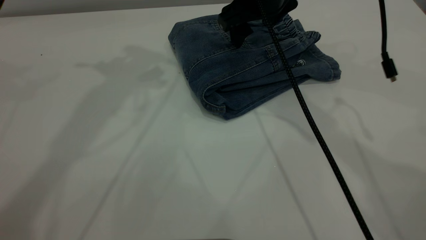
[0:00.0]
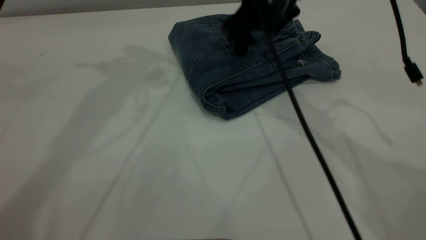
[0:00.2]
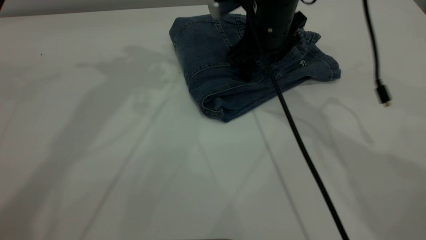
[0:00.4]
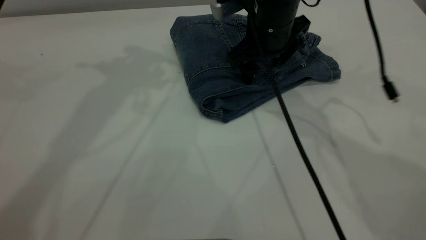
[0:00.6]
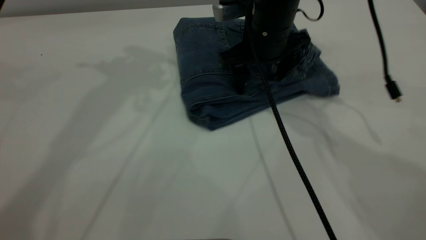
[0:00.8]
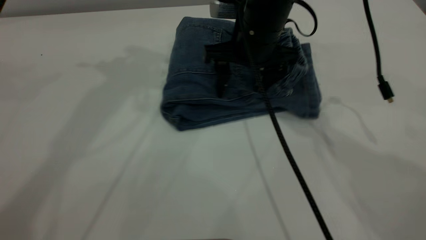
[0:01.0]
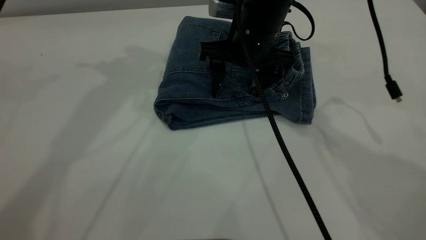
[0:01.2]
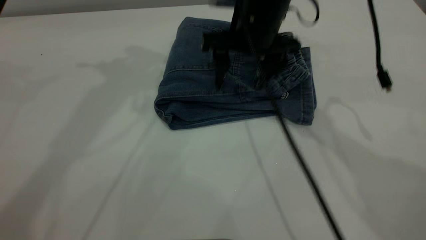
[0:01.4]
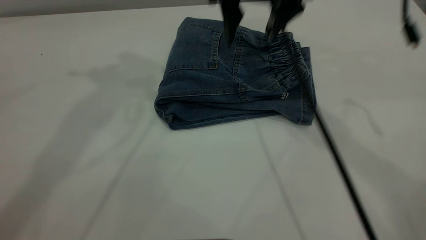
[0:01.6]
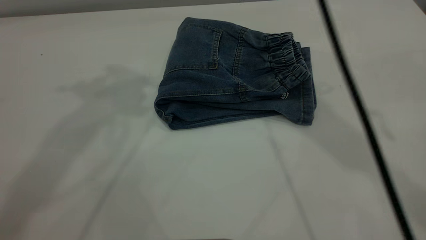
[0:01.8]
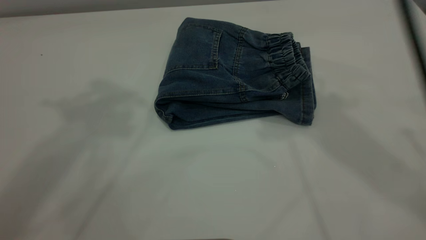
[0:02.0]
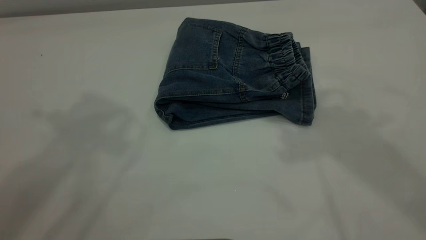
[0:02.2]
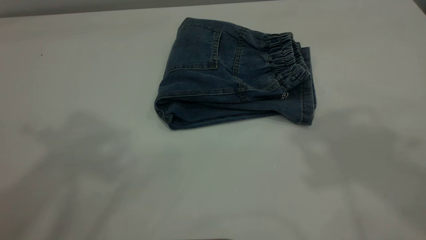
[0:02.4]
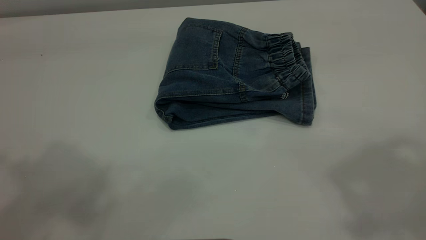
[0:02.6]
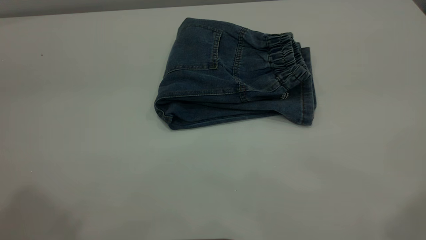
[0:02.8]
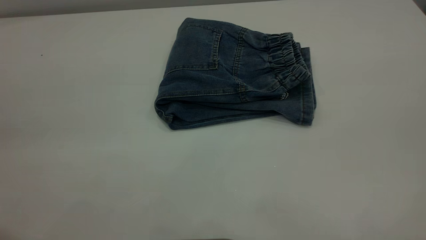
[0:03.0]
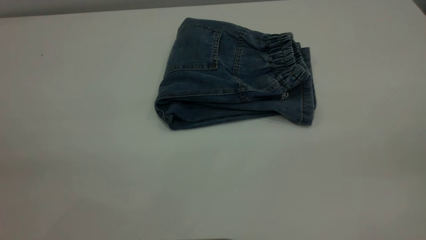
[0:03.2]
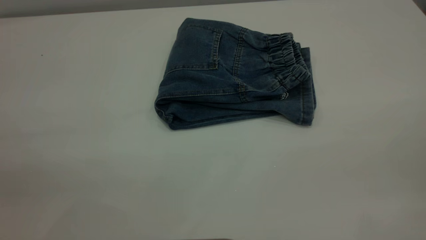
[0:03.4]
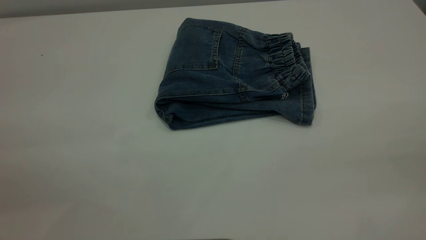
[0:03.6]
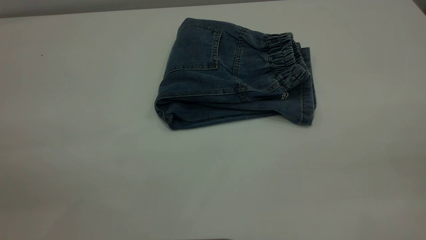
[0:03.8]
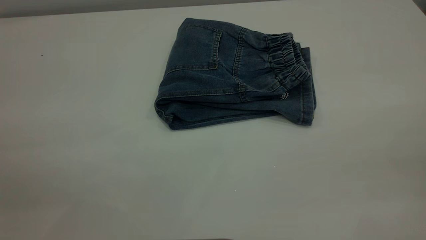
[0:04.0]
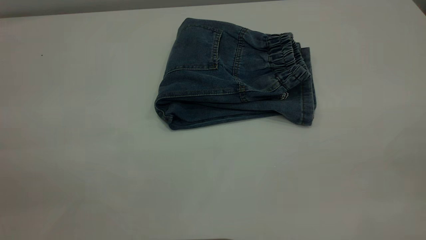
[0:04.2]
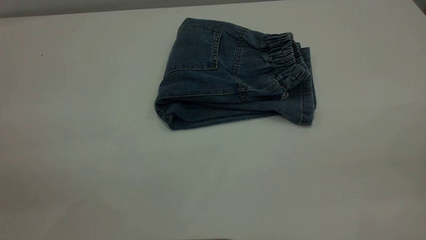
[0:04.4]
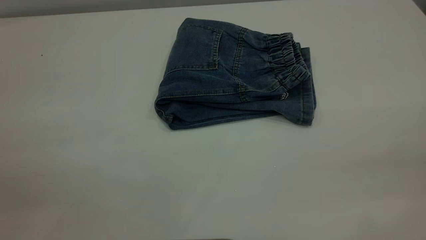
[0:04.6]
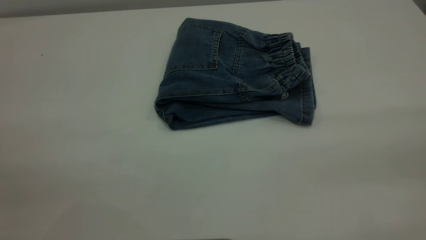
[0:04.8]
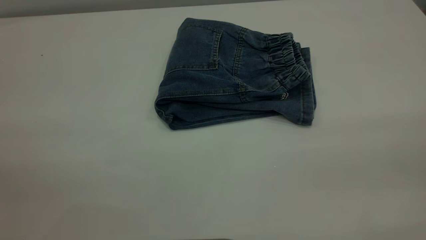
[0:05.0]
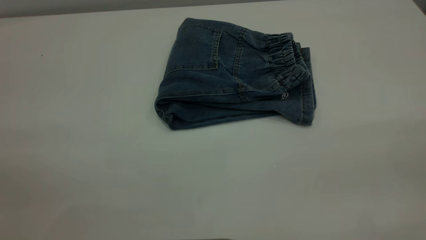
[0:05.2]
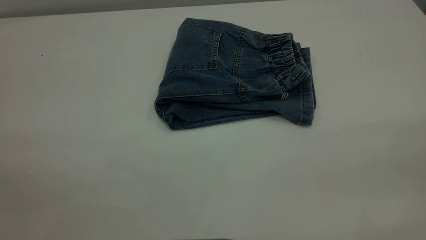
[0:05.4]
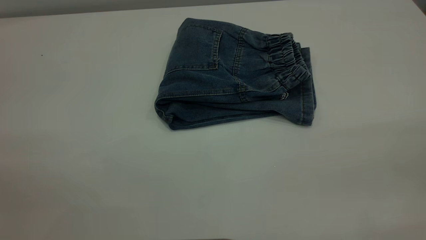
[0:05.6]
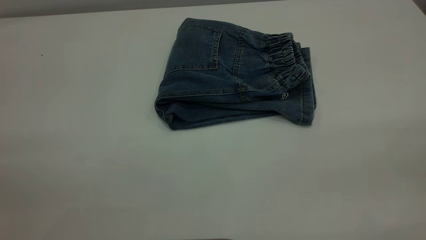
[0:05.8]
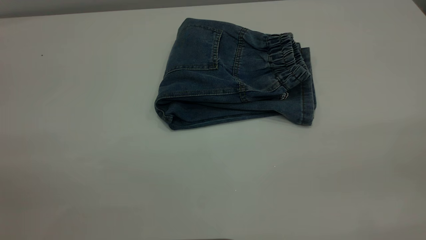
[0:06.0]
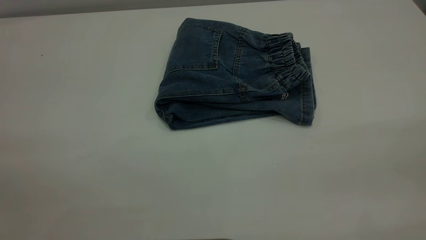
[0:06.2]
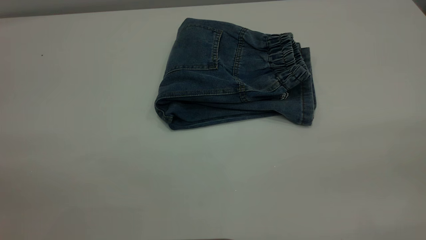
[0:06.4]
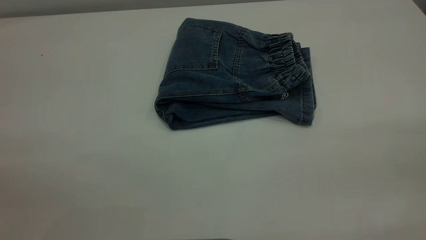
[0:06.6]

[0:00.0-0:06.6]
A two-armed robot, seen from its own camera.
0:00.0 to 0:01.6: The two grippers go roughly 5 cm upward.
0:01.6 to 0:03.2: The right gripper moves backward and to the right, approximately 40 cm. Meanwhile the left gripper moves backward, some 35 cm.

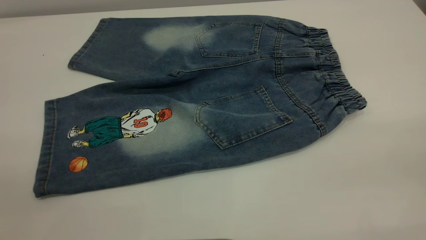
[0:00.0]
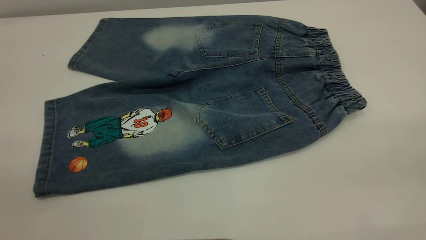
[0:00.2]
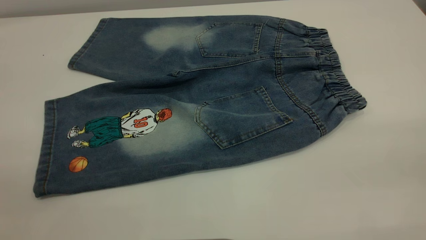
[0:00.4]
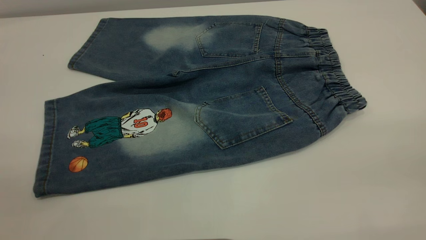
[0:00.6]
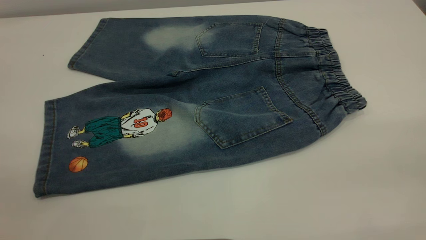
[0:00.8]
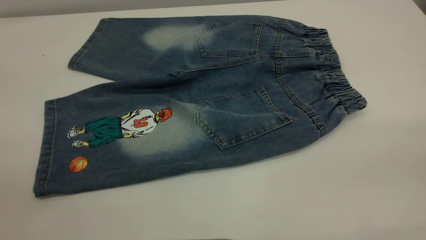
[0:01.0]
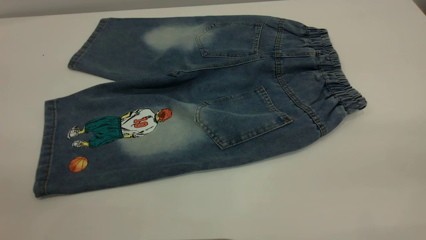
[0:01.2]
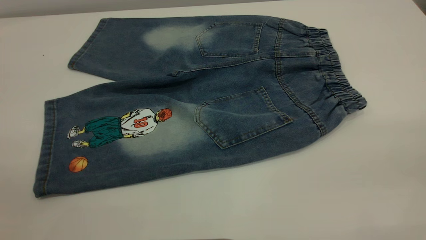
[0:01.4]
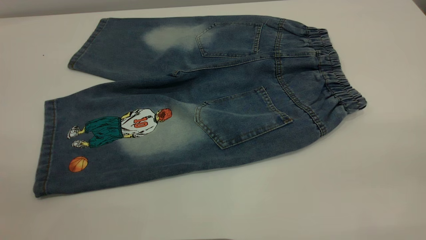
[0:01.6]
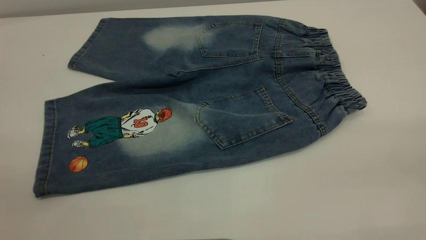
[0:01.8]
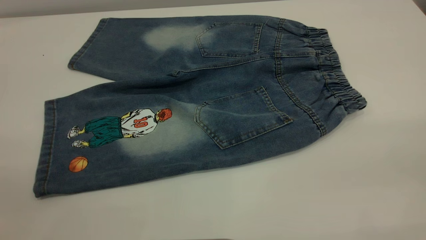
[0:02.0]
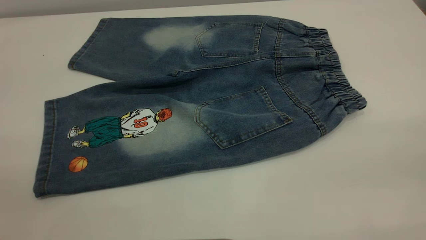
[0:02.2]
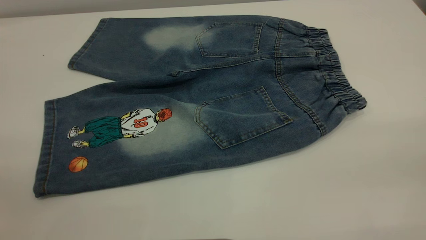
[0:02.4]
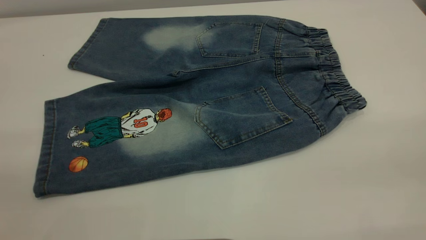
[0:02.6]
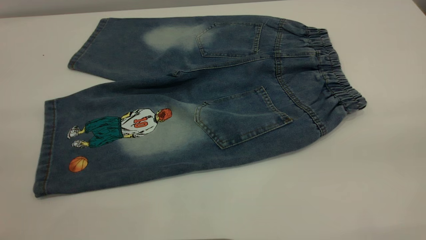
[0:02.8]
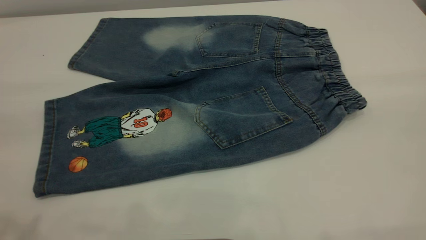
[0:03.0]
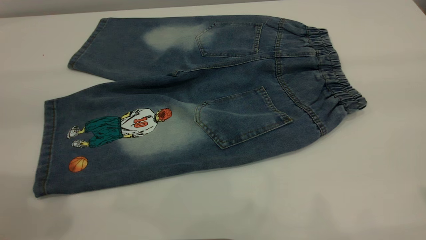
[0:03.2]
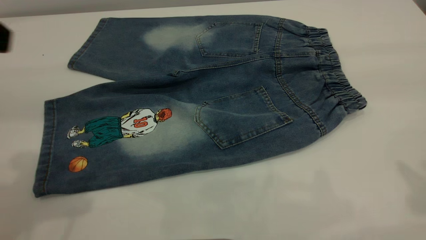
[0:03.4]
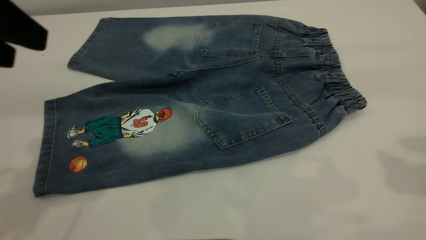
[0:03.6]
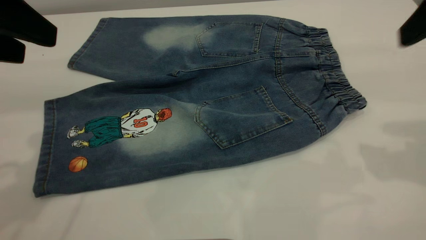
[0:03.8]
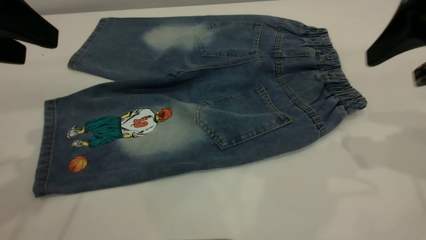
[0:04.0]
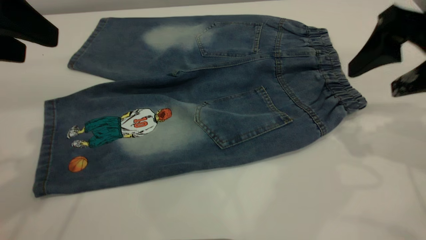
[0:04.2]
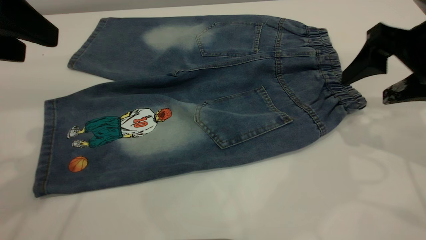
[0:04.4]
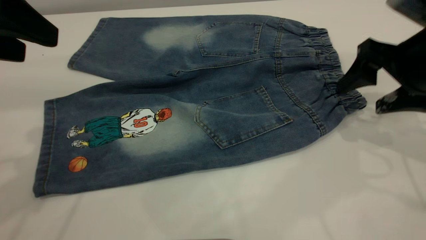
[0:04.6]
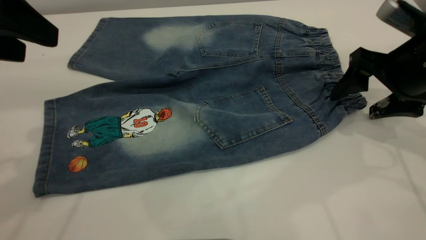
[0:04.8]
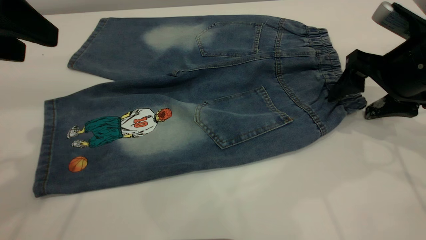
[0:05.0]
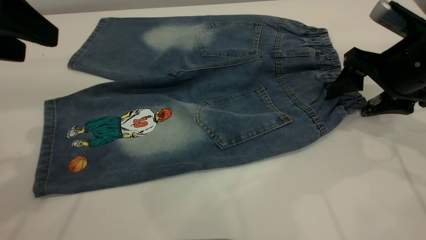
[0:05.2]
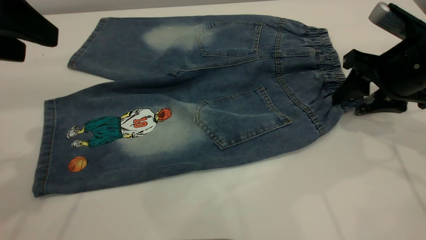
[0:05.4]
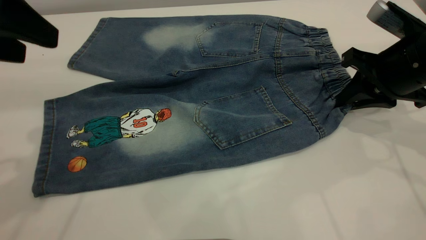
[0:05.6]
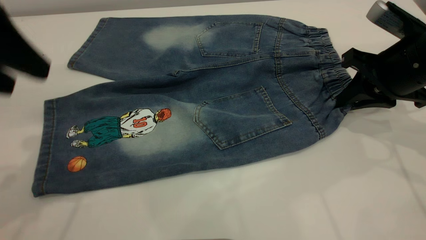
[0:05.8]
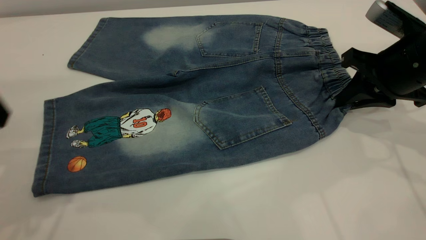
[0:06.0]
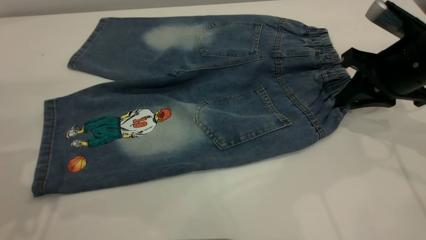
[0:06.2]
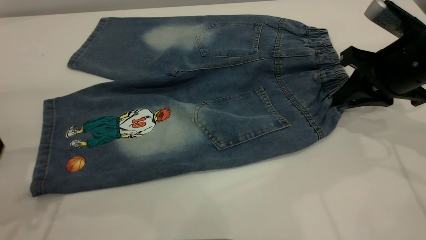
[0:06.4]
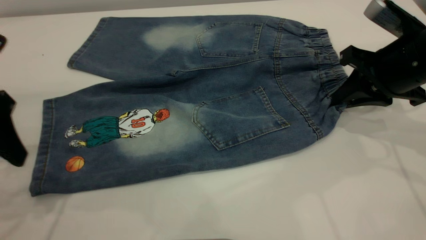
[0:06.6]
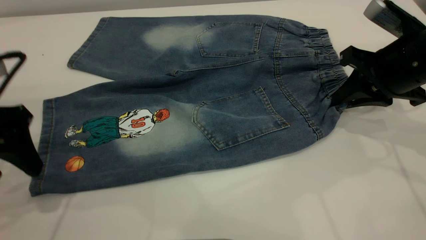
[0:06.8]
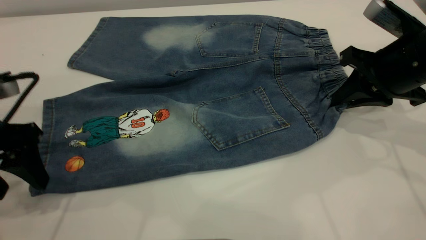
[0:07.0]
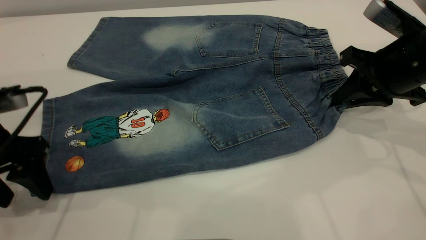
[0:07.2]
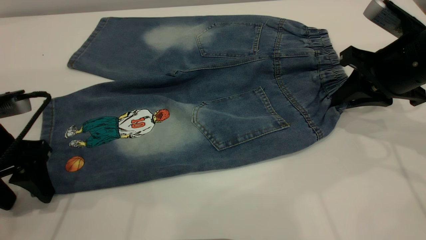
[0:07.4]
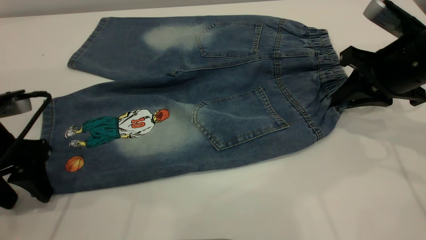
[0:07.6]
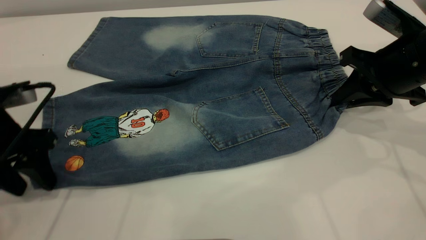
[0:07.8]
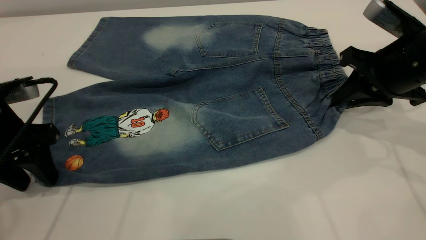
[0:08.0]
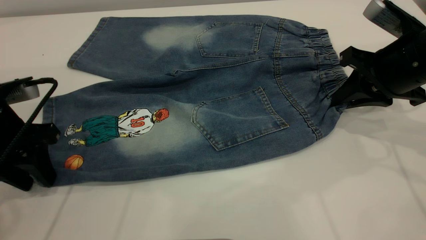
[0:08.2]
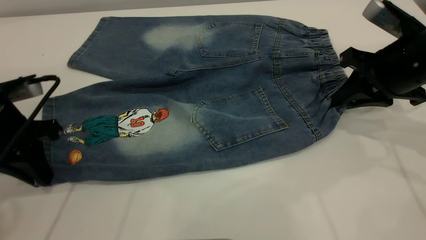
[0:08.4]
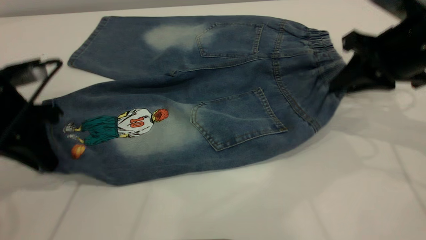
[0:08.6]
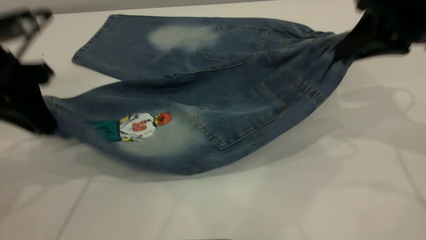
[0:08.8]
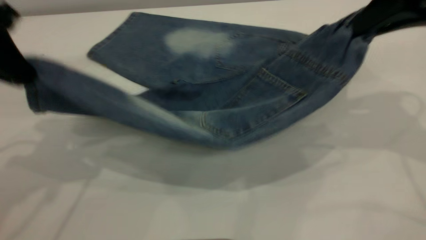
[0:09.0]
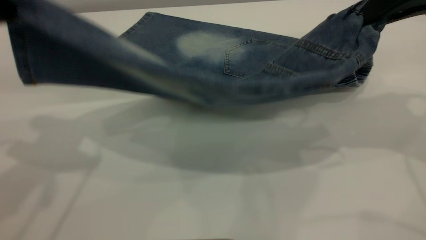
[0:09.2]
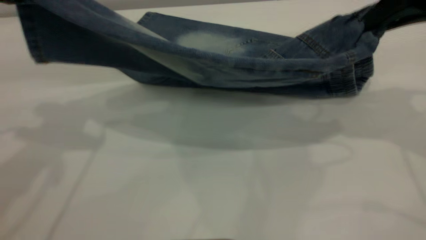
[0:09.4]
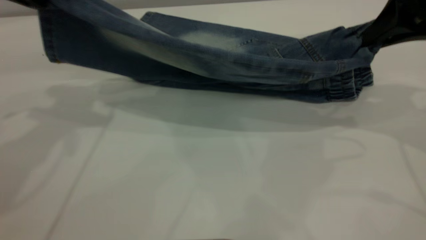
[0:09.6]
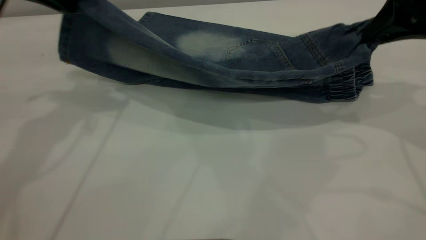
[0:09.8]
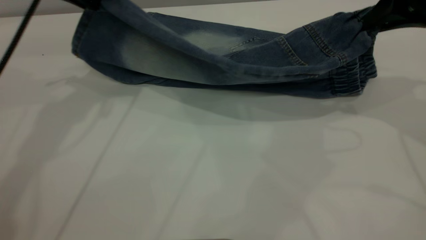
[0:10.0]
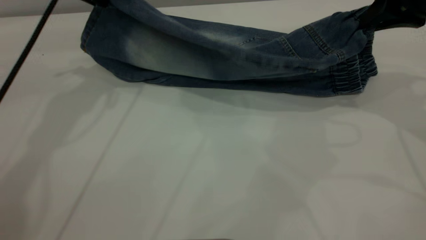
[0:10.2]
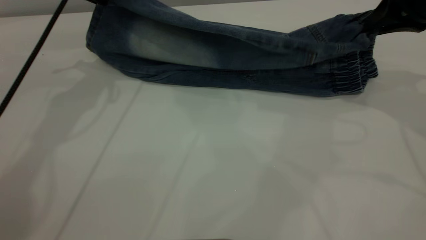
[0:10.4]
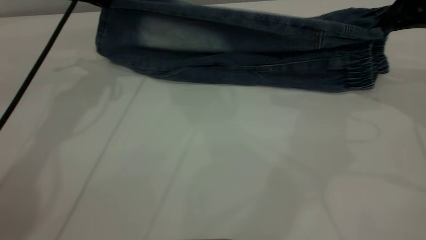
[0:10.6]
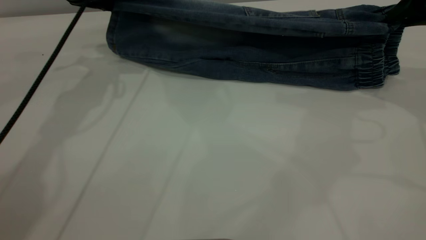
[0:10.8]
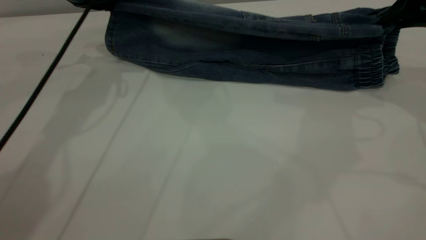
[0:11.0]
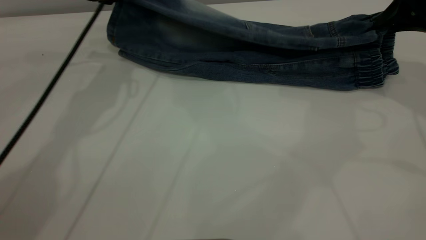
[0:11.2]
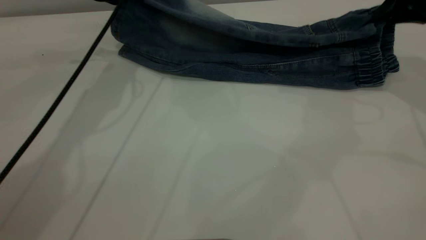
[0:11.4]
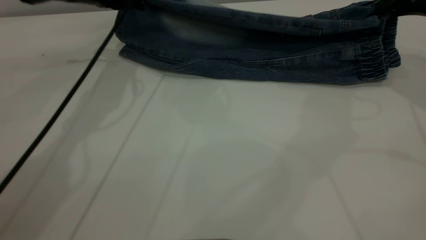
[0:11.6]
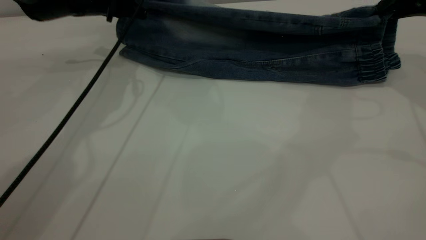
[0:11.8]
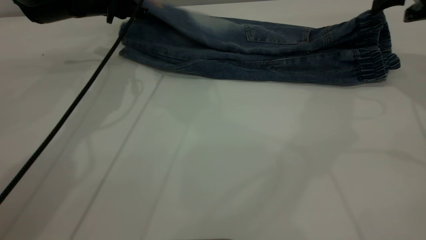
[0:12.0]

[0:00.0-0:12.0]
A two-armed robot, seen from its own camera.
0:00.0 to 0:01.6: Neither gripper changes place.
0:03.0 to 0:04.4: The right gripper shifts approximately 30 cm downward and forward. The left gripper moves forward and downward, roughly 15 cm.
0:04.4 to 0:06.0: The right gripper moves some 5 cm, and closes its fingers.
0:06.0 to 0:07.6: The left gripper is displaced downward by some 15 cm.
0:07.6 to 0:09.0: The grippers both shift upward by approximately 15 cm. The left gripper closes its fingers.
0:09.0 to 0:10.4: The left gripper heads forward, covering some 20 cm, while the right gripper heads downward and forward, covering some 10 cm.
0:10.4 to 0:12.0: The left gripper travels downward by roughly 5 cm, and opens its fingers. Meanwhile the right gripper ends up about 5 cm from where it was, and opens up.
